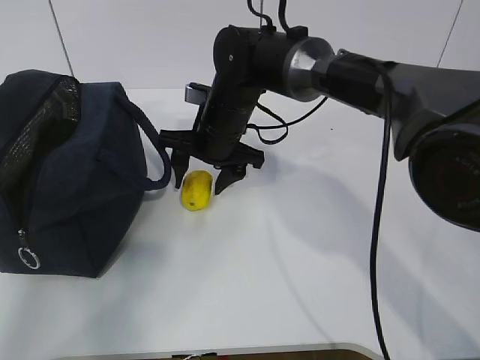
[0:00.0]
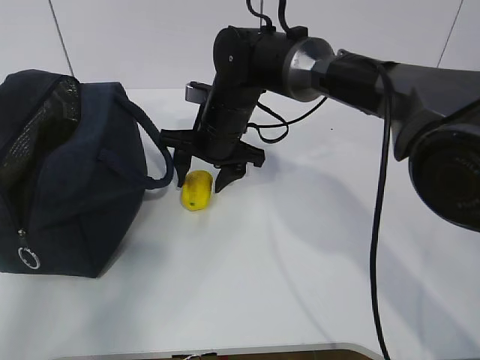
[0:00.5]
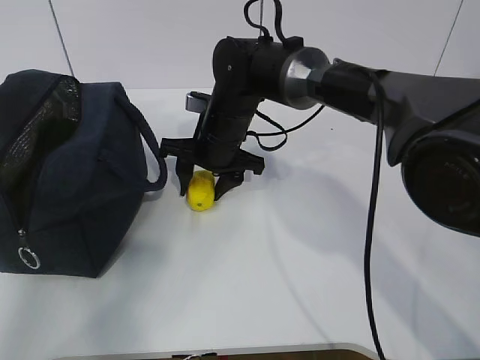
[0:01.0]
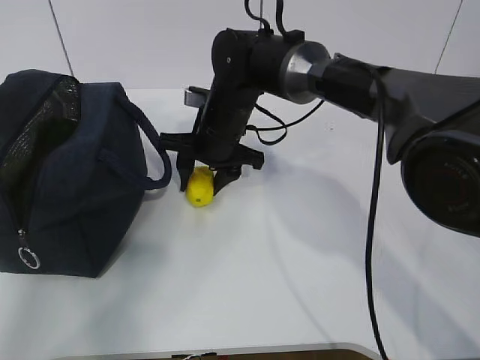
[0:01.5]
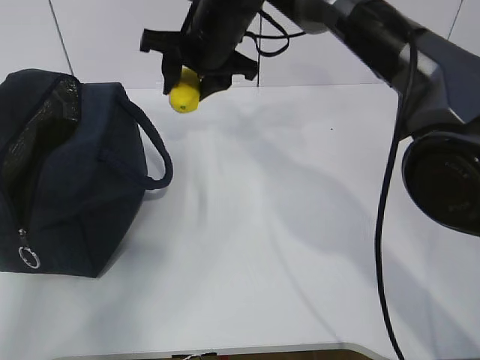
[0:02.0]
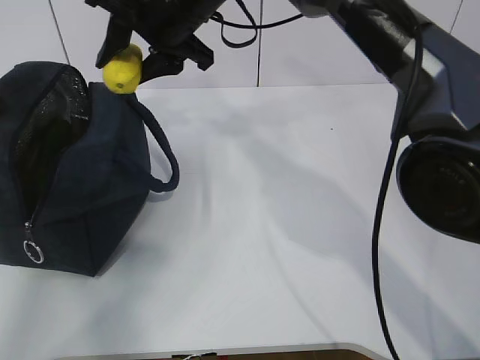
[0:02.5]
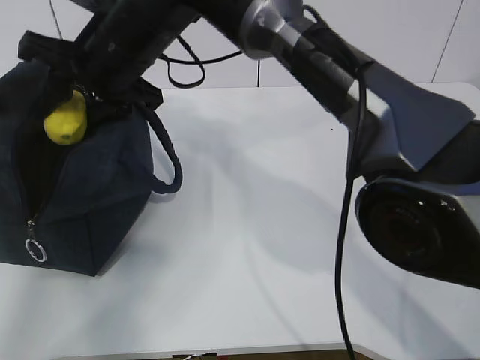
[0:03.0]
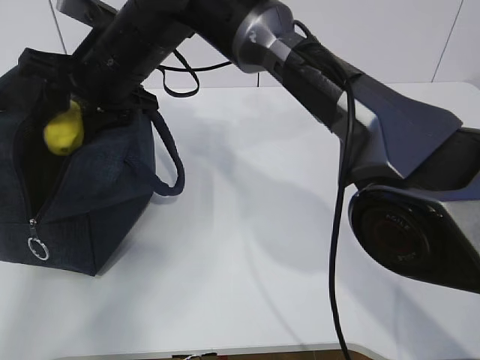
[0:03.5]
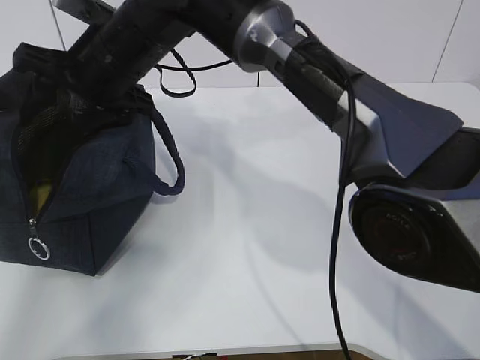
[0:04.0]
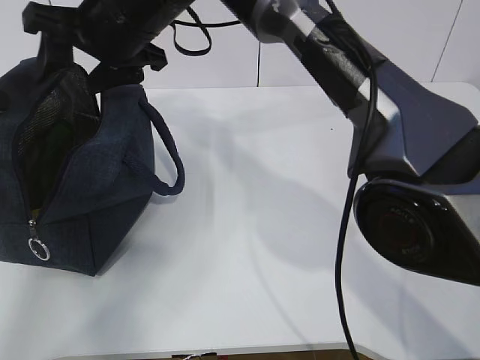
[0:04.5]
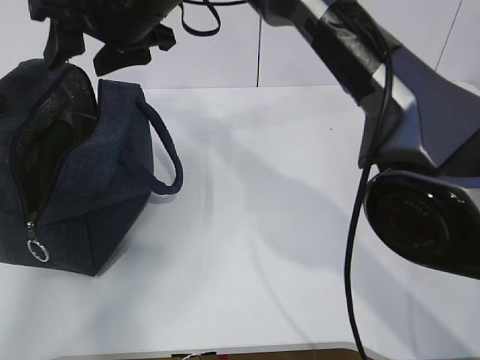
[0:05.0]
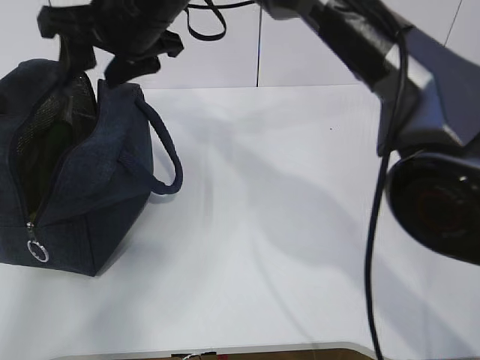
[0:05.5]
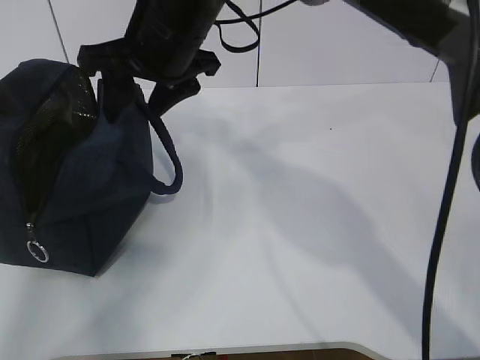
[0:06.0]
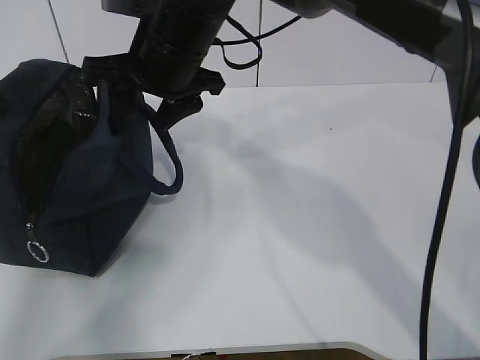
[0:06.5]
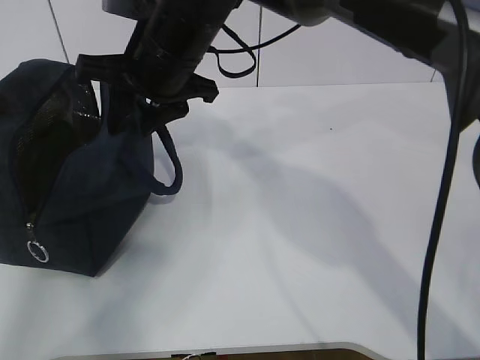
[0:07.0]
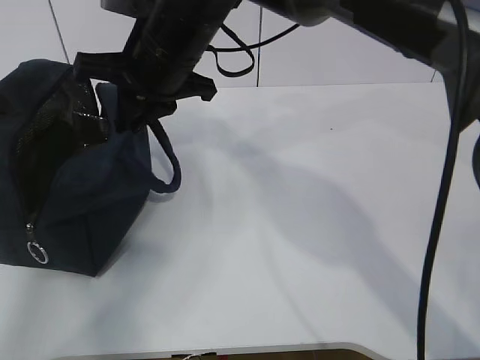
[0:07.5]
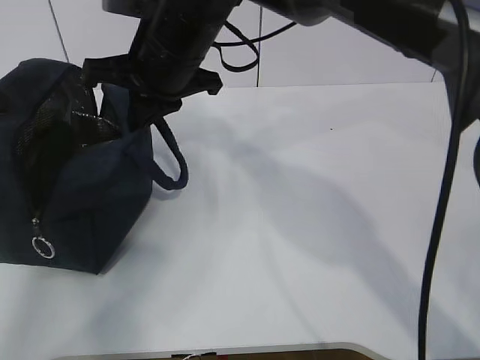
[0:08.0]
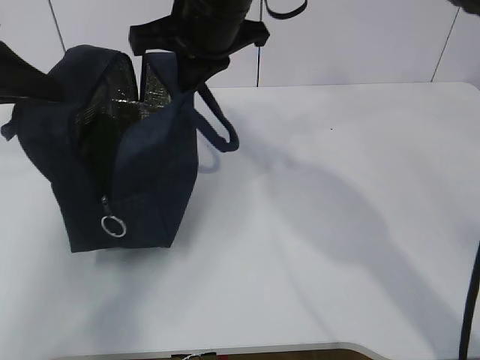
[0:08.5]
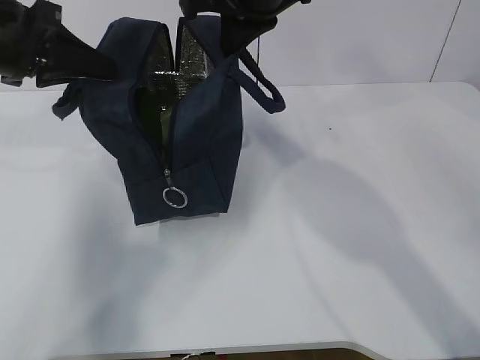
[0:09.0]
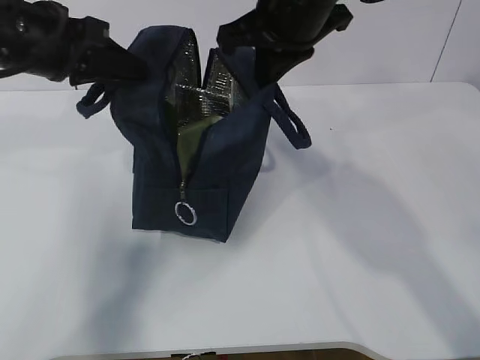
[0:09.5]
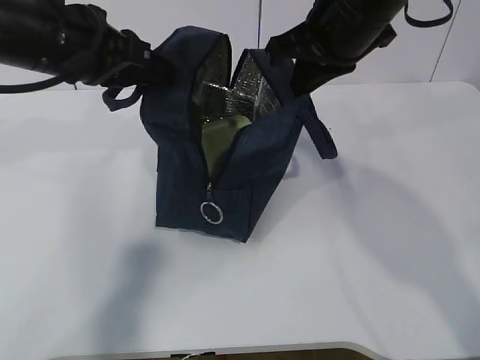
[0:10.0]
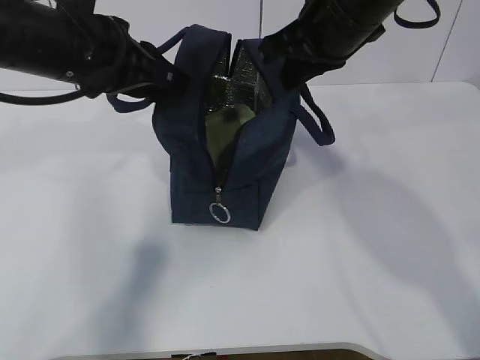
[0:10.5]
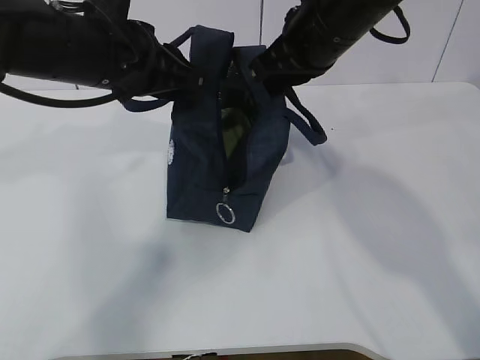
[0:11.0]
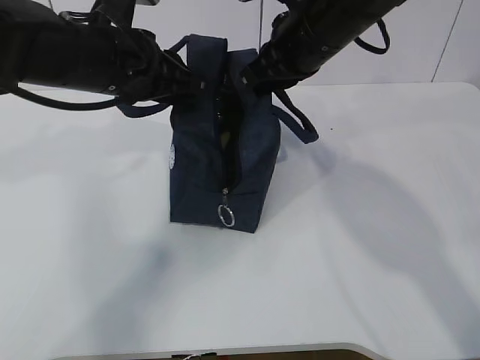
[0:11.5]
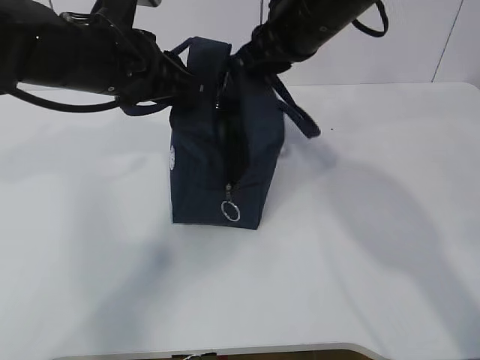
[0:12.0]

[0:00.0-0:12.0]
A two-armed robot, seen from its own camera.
Step, 0:01.0 to 0:04.5: Move the lunch bag to the right.
0:00.0 to 0:02.0: The right gripper goes about 10 cm upward.
0:02.0 to 0:04.0: The right gripper goes roughly 10 cm to the left and backward.
0:04.0 to 0:06.0: The right gripper goes roughly 5 cm to the right.
0:06.0 to 0:08.0: The right gripper closes its fingers.
0:08.0 to 0:10.0: Both grippers move to the right, roughly 15 cm.
0:10.0 to 0:12.0: The left gripper moves approximately 5 cm, while the right gripper opens.

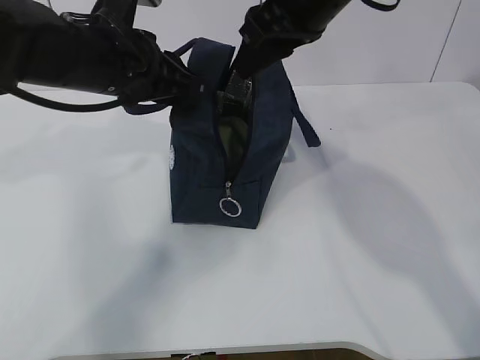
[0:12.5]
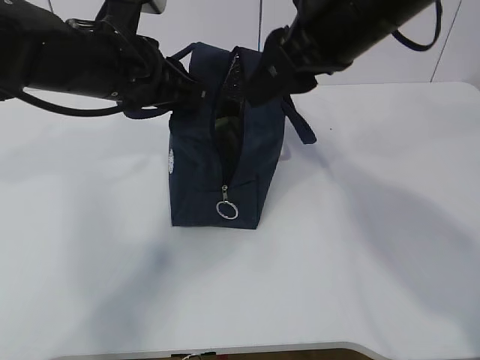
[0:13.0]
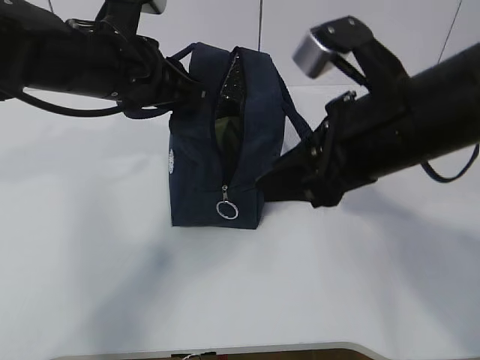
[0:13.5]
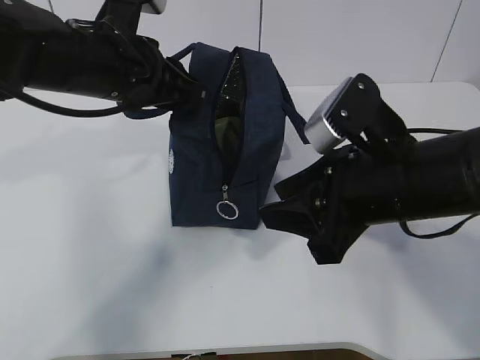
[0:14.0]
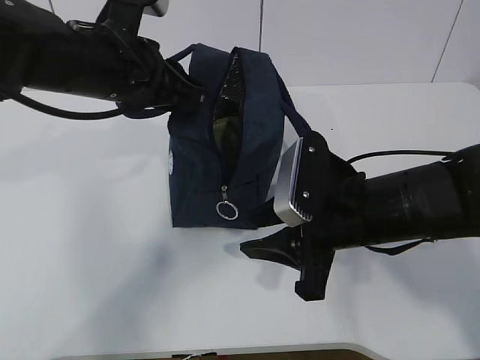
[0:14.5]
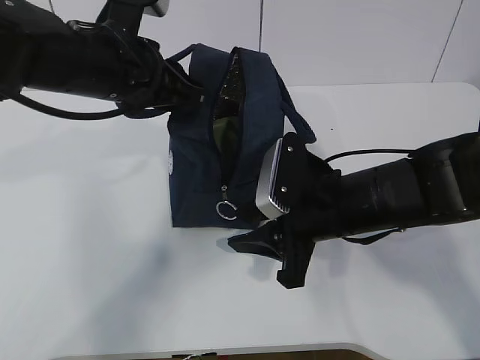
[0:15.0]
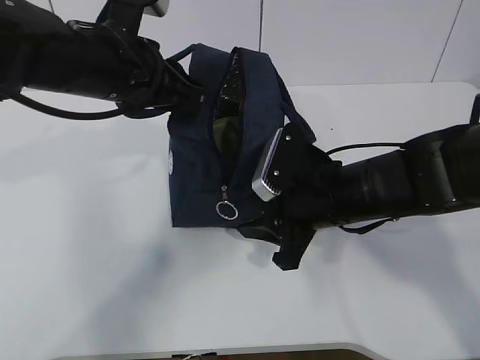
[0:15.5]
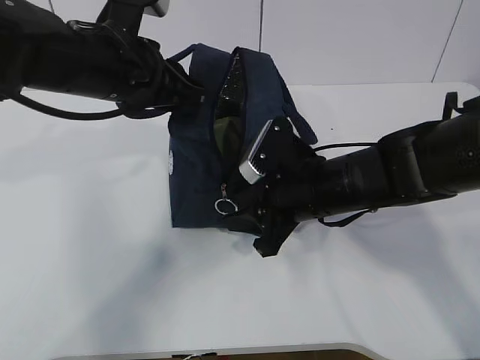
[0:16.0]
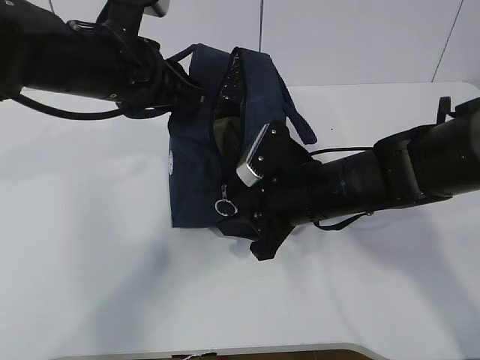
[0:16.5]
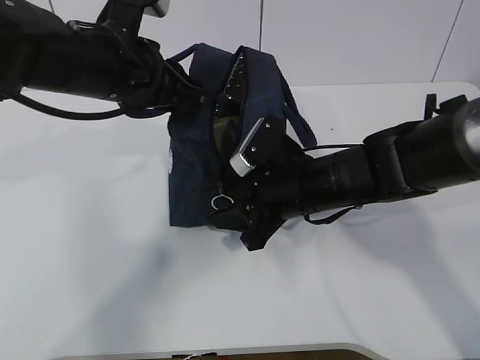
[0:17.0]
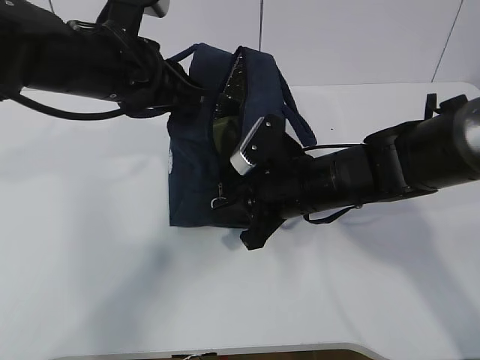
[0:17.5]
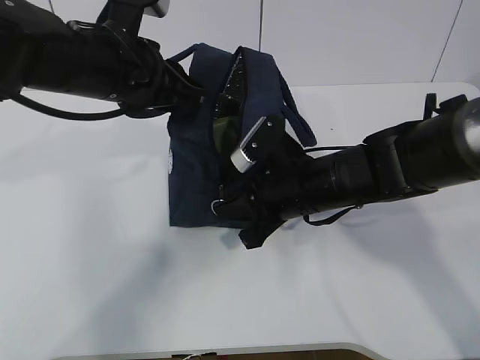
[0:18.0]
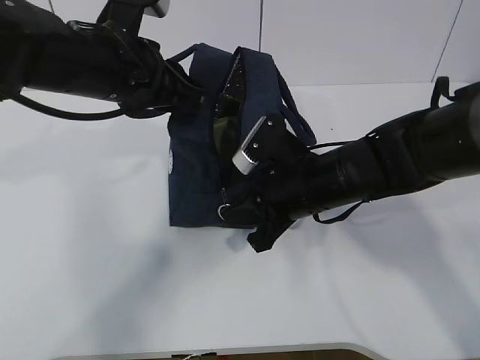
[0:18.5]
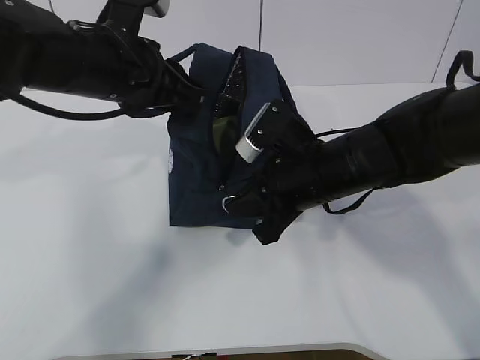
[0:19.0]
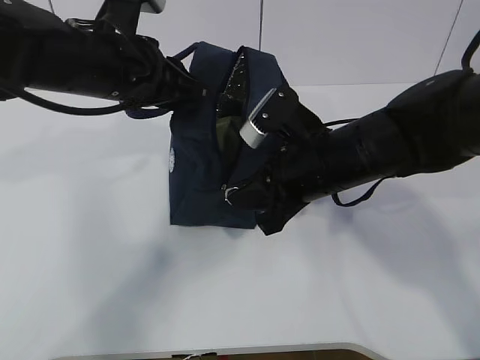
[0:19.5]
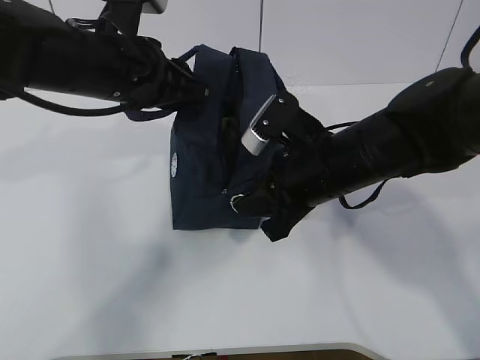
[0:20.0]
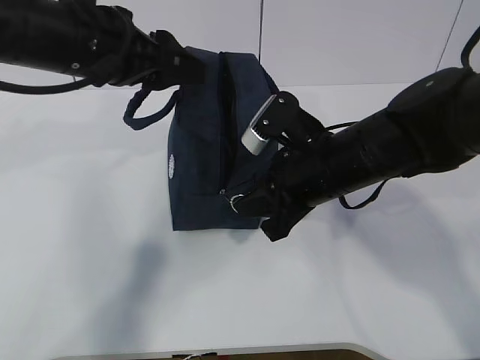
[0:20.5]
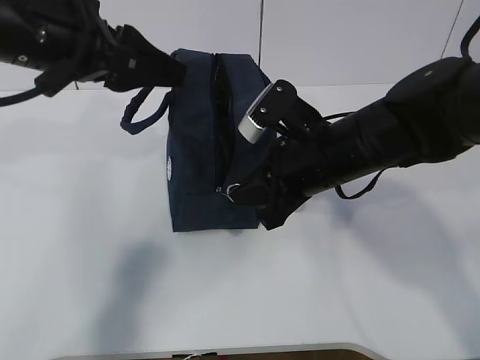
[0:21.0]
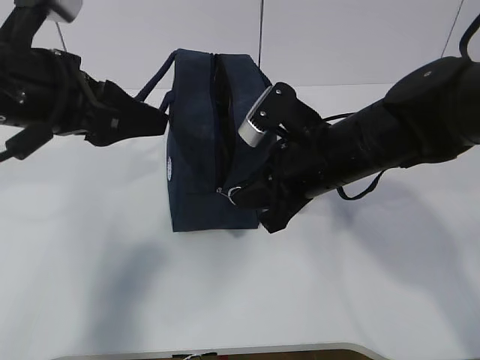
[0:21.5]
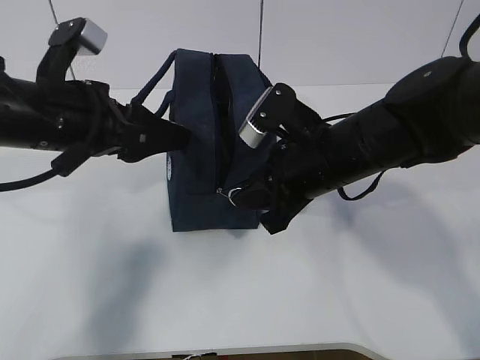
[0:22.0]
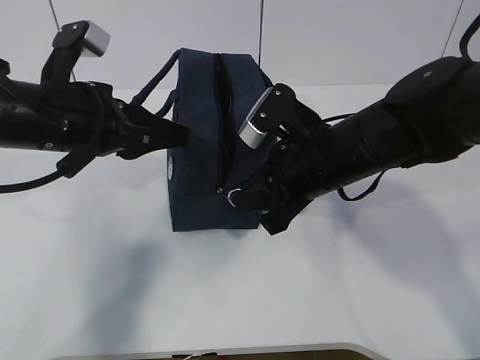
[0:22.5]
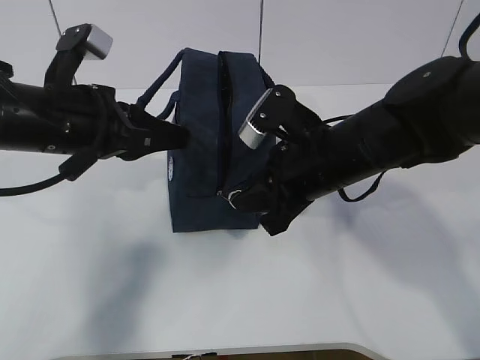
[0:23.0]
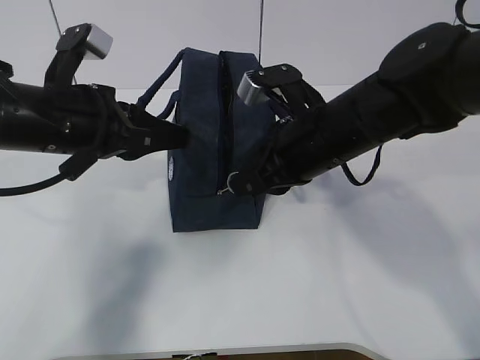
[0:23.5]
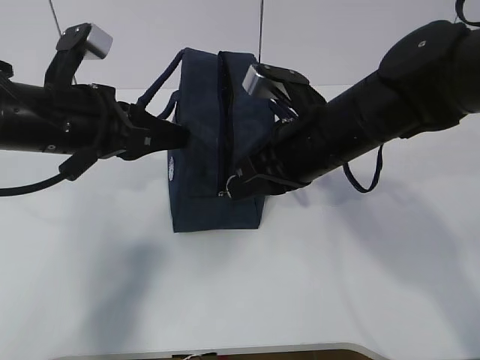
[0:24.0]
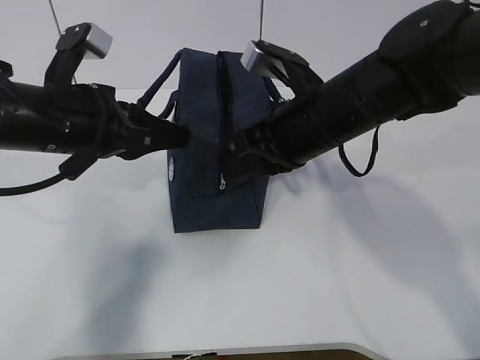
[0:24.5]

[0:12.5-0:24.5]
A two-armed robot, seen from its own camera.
Step, 0:12.5 to 0:24.0: Pull the zipper with your right hand.
0:12.5 to 0:14.5: The right gripper shifts about 20 cm downward and backward.
0:14.5 to 0:16.5: The right gripper heads forward, covering some 5 cm.
0:16.5 to 0:18.5: The right gripper closes up.
0:18.5 to 0:20.5: The left gripper opens its fingers.
0:20.5 to 0:22.5: The left gripper shifts roughly 5 cm downward, and closes up.

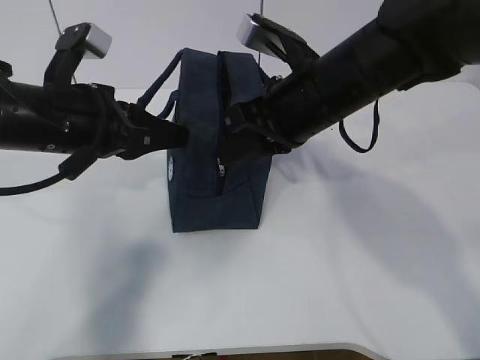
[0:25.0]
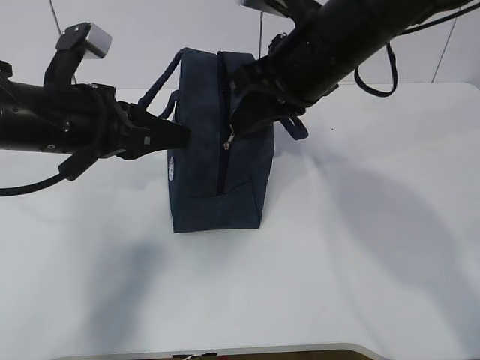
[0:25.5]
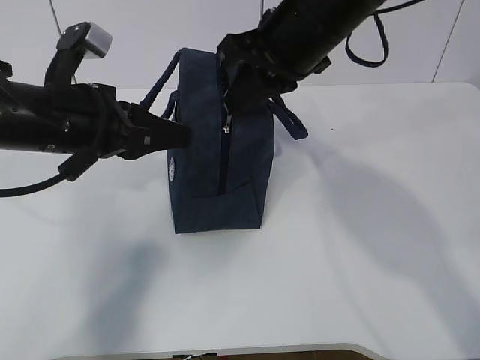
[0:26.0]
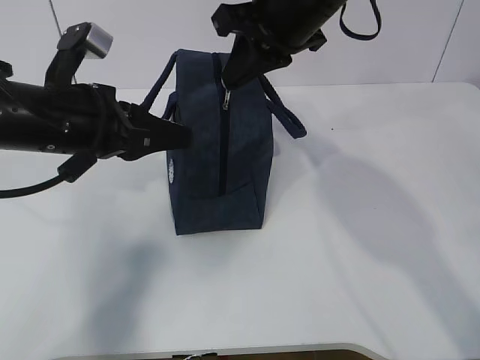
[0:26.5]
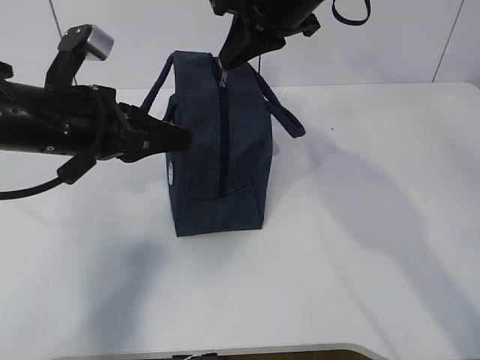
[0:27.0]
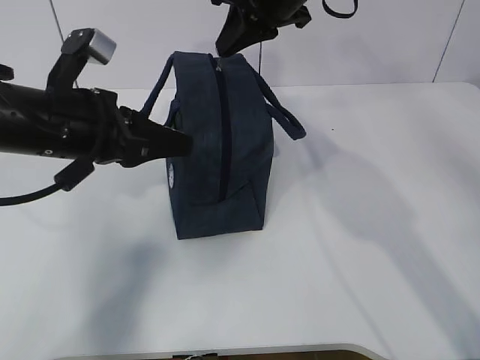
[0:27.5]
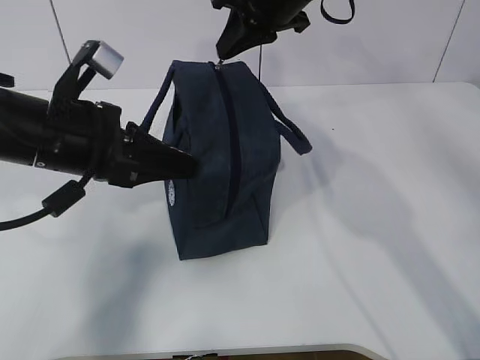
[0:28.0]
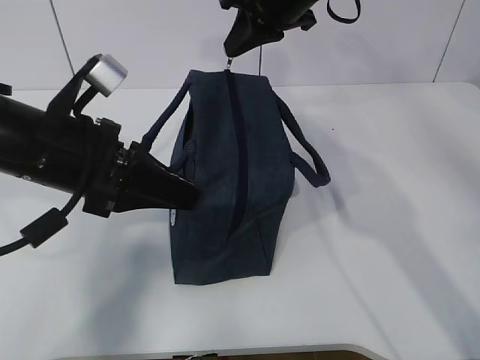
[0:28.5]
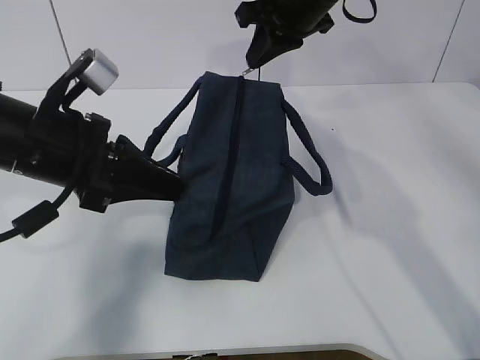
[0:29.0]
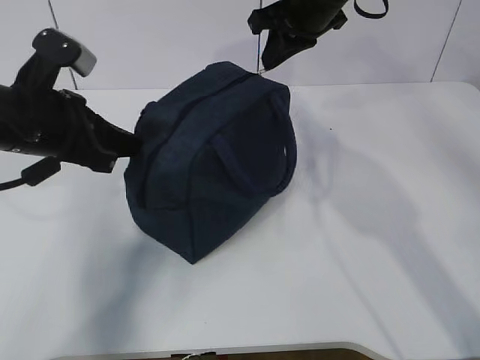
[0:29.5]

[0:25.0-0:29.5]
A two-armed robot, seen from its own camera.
0:25.0 to 0:27.0: The right gripper travels forward and upward by about 10 cm.
0:27.0 to 0:29.5: The right gripper is displaced forward by about 5 cm.
